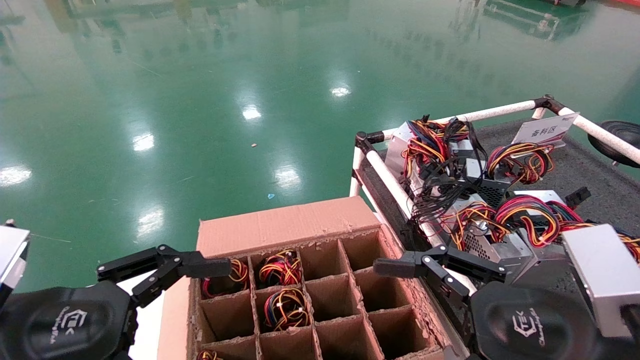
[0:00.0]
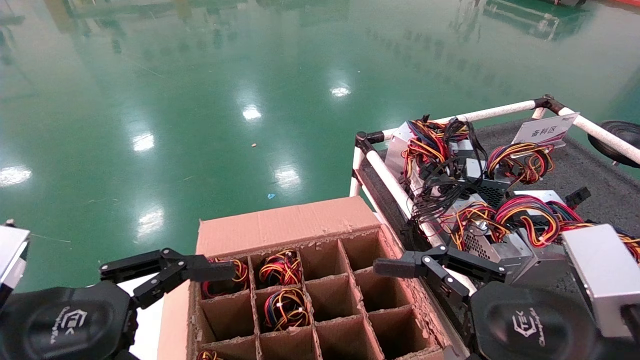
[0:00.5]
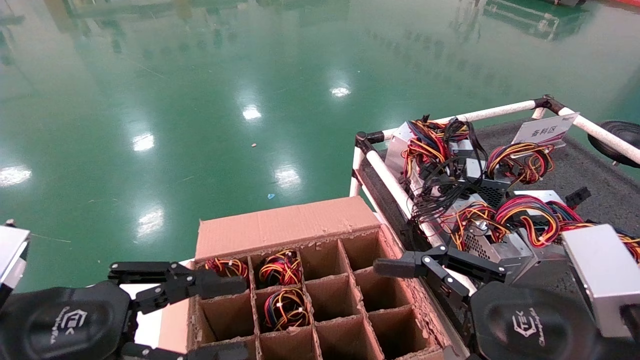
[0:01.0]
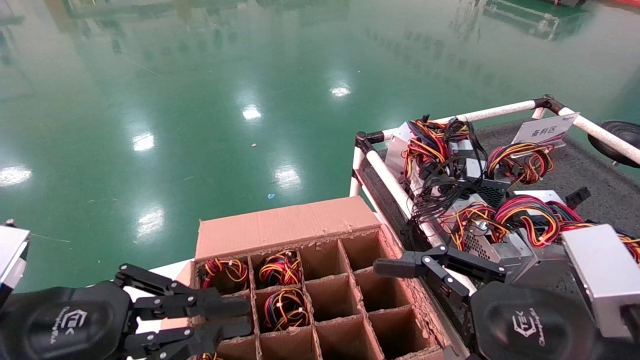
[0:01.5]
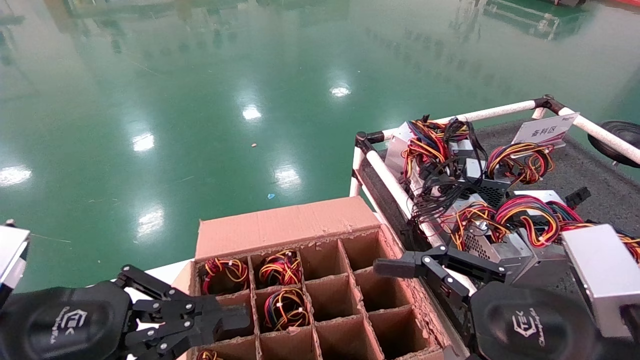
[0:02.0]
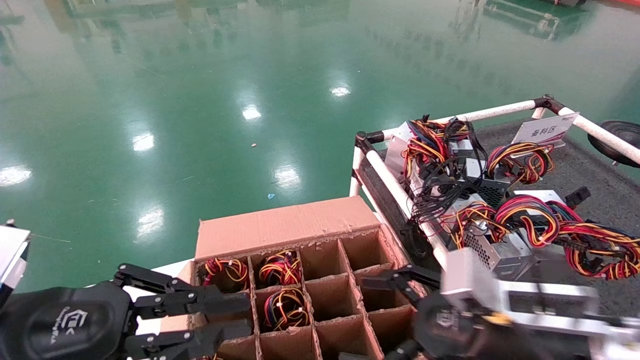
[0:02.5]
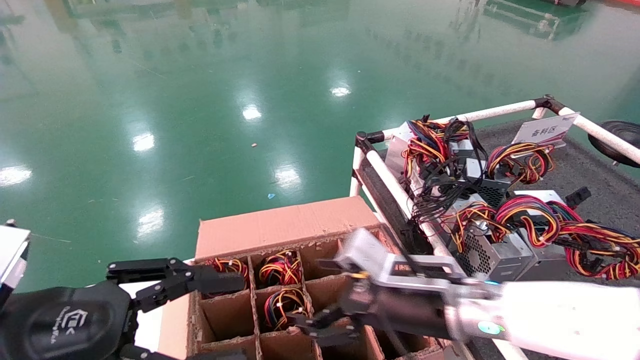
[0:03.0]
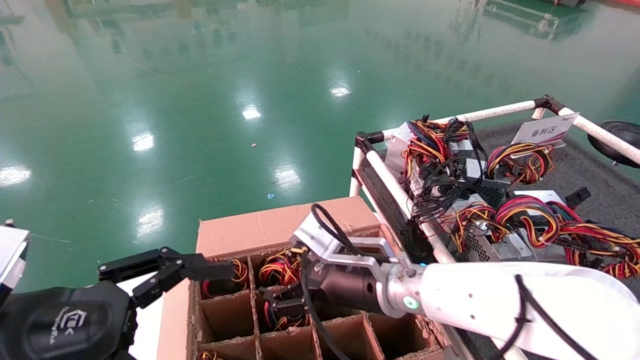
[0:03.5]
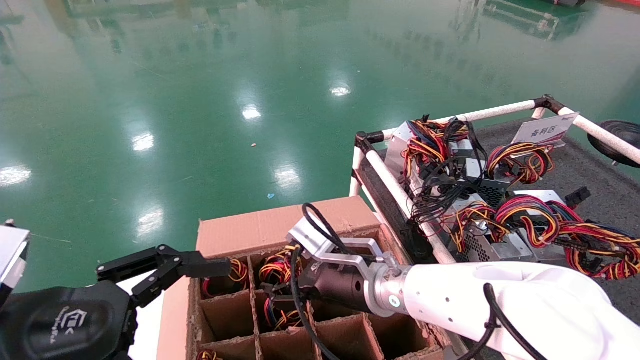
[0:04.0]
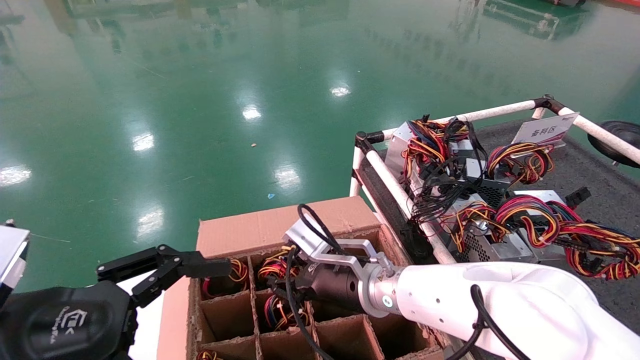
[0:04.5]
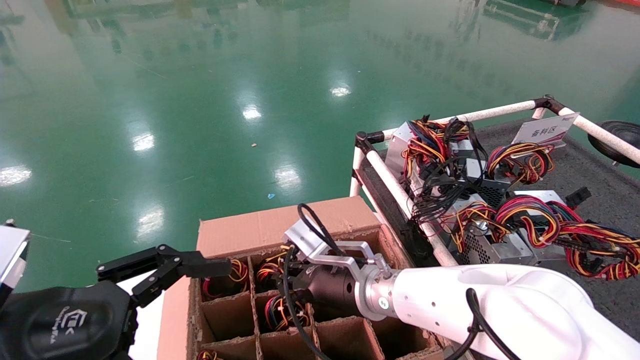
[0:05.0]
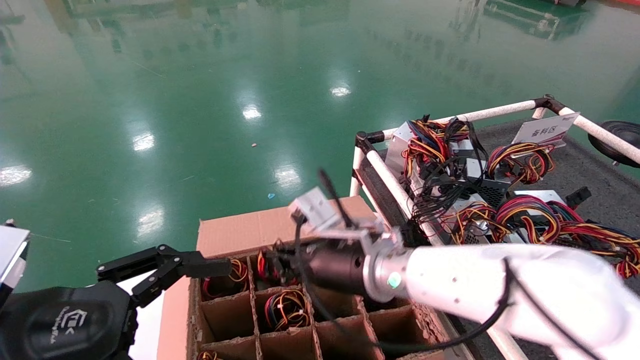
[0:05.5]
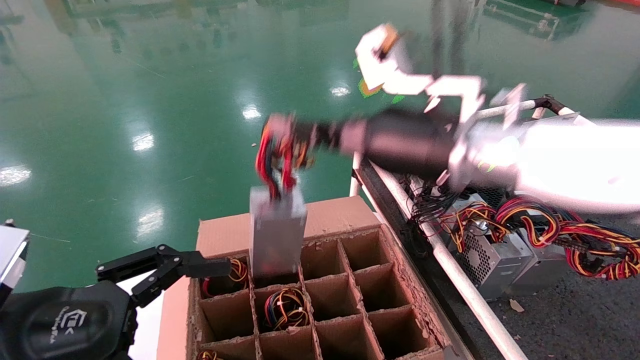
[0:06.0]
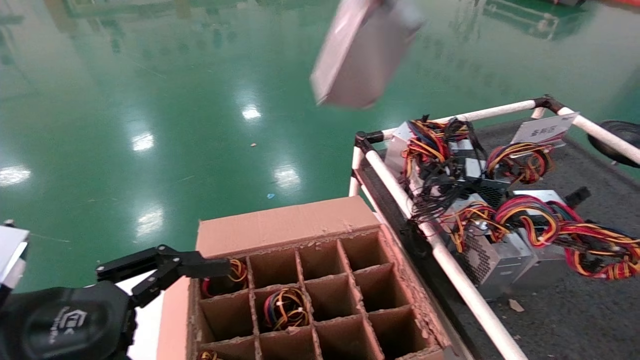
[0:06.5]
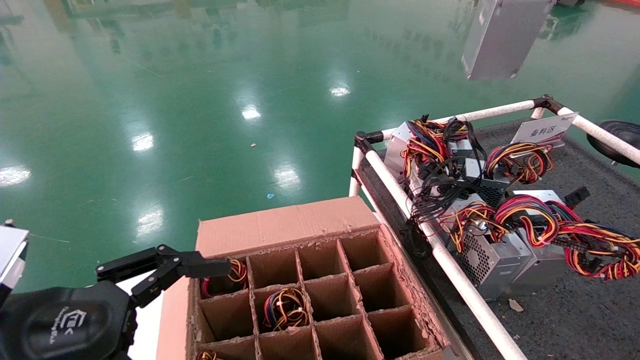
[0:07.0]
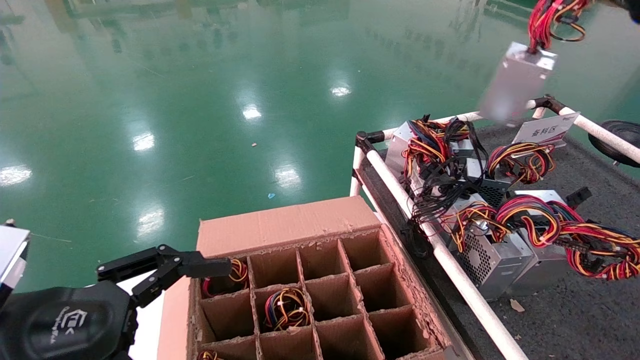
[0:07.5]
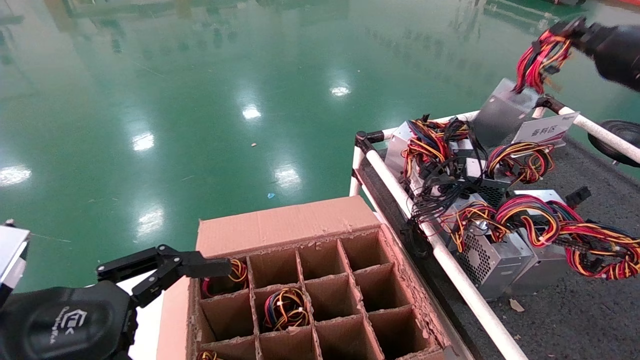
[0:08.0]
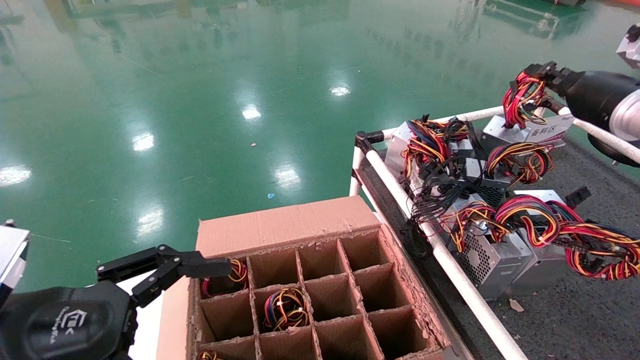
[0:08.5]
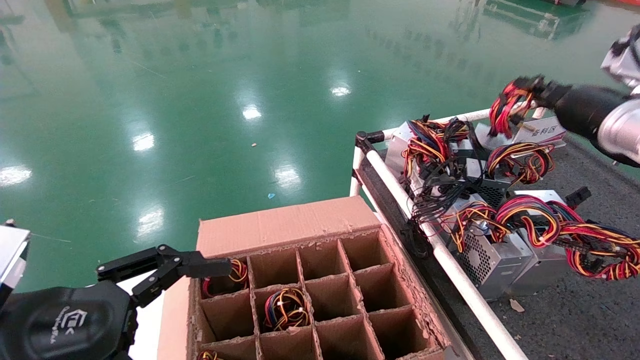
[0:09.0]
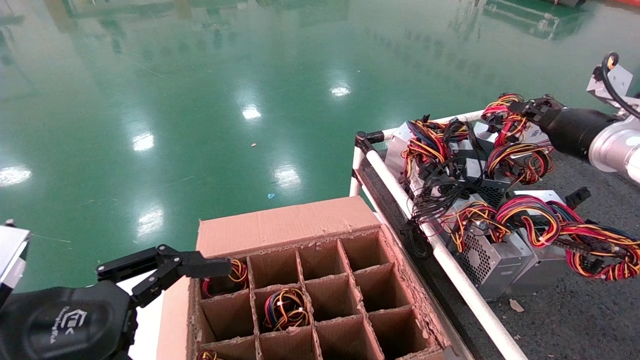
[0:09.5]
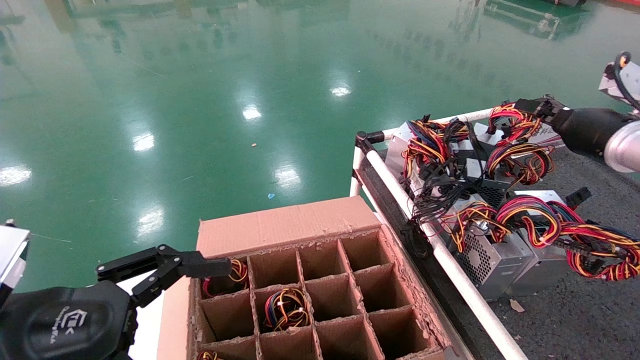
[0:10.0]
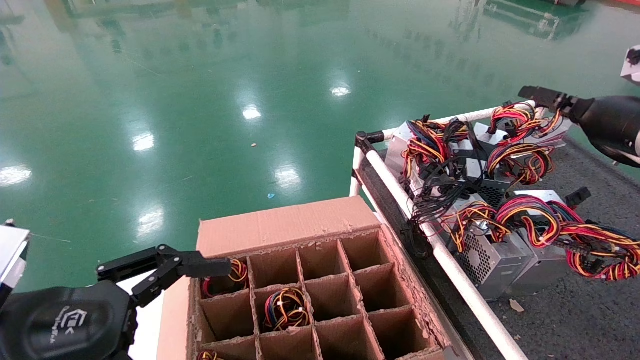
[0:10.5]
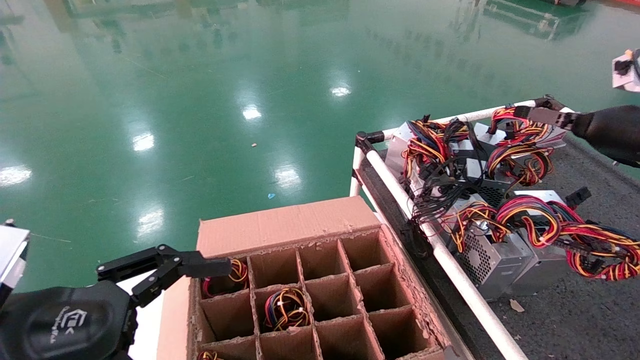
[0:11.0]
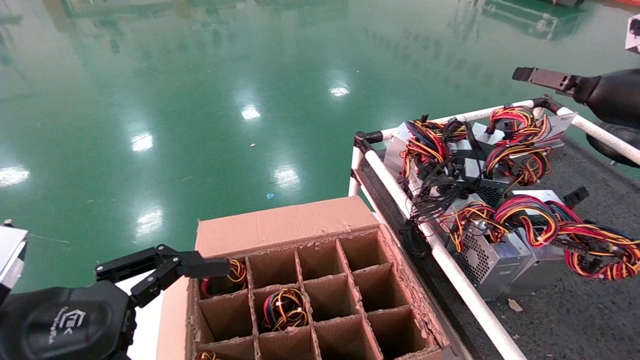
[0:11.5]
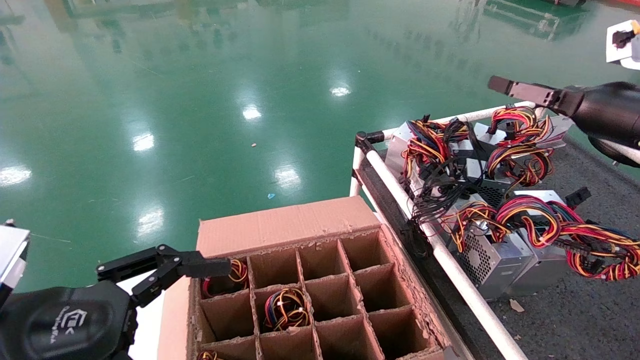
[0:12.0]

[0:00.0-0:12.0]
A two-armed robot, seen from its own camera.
Step, 0:02.5 to 0:05.0: Grab and lift the power supply from the large box.
Step, 0:05.5 to 0:10.0: Place the power supply on the operating table.
0:00.0 to 0:02.0: The left gripper closes.
0:02.0 to 0:04.0: The left gripper opens its fingers. Meanwhile the right gripper shifts some 25 cm to the left and forward.
0:04.0 to 0:06.0: The right gripper heads upward, covering some 20 cm, and closes up.
0:06.0 to 0:08.0: The right gripper goes about 30 cm to the right.
0:08.0 to 0:10.0: The right gripper is displaced downward by some 10 cm.
0:10.0 to 0:12.0: The right gripper shifts about 5 cm backward, and opens up.

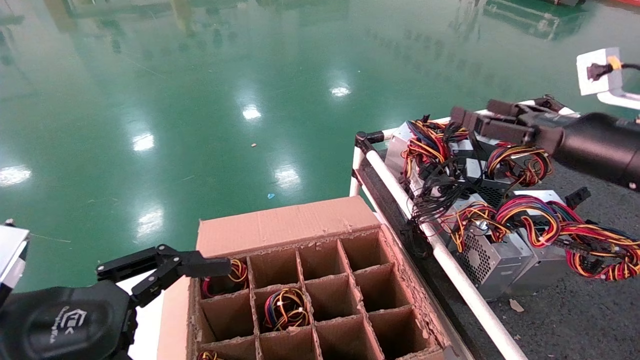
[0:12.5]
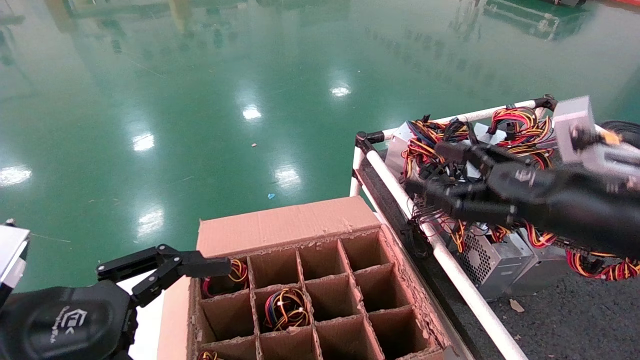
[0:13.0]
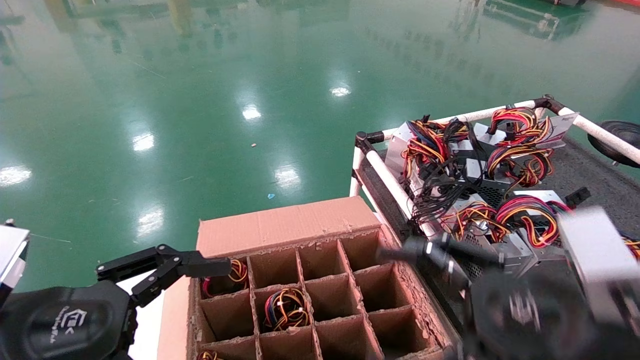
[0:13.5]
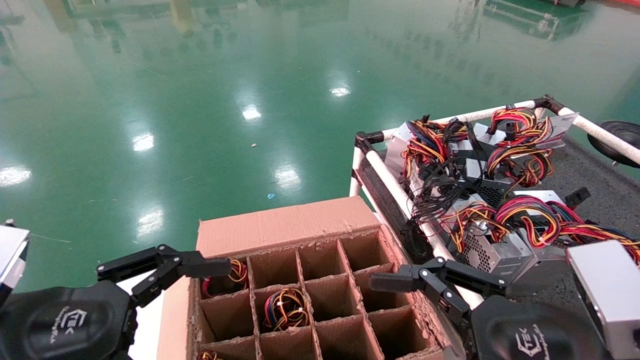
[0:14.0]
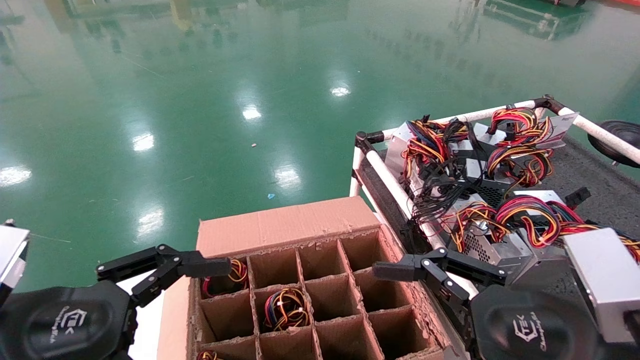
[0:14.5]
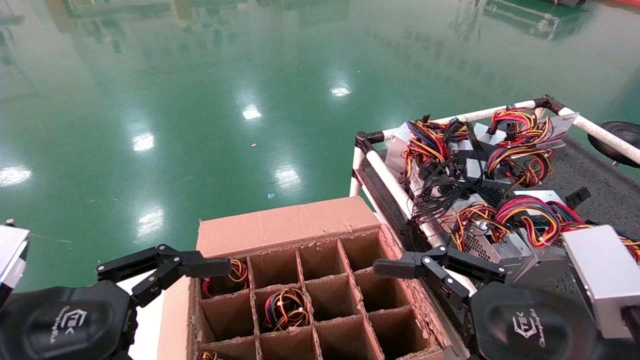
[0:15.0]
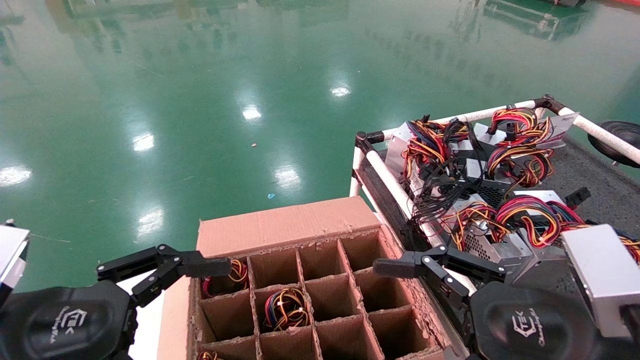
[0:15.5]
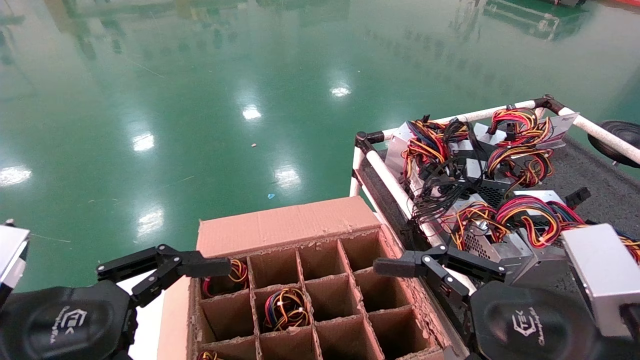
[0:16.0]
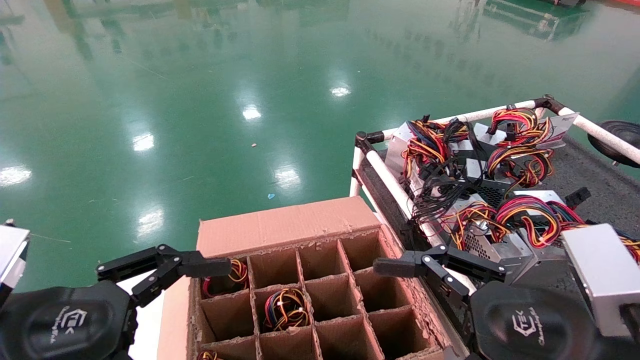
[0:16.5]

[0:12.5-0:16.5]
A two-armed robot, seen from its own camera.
0:12.5 to 0:14.5: The right gripper shifts approximately 20 cm backward, downward and to the left.
0:14.5 to 0:16.5: The two grippers keep their place.
